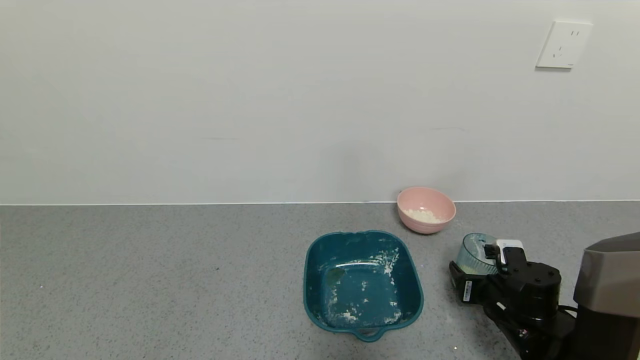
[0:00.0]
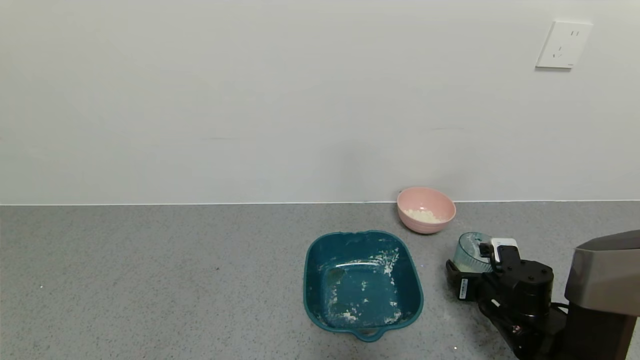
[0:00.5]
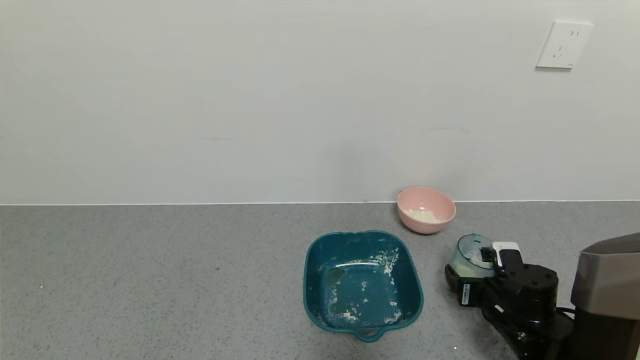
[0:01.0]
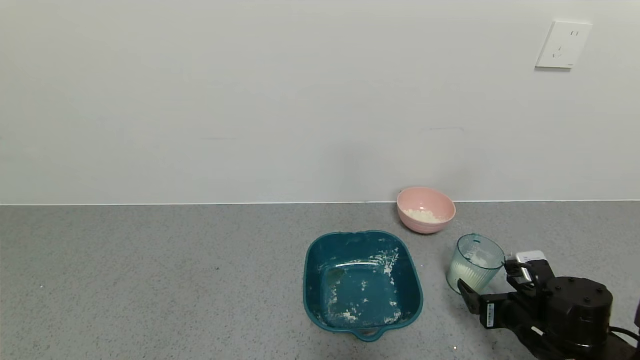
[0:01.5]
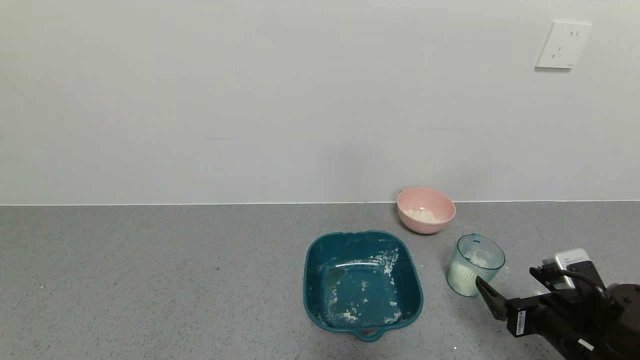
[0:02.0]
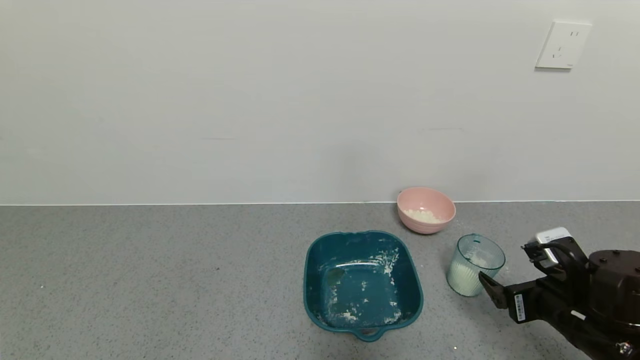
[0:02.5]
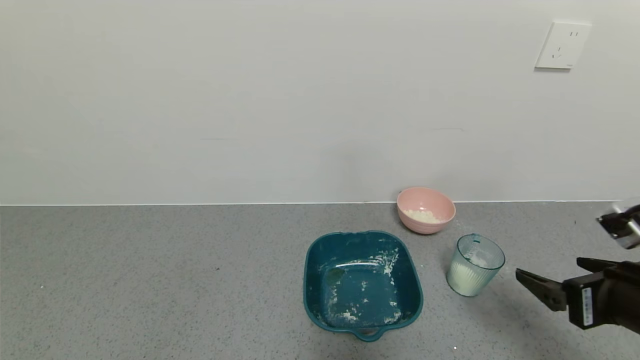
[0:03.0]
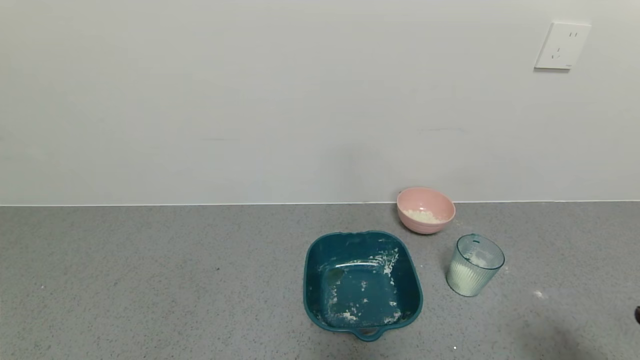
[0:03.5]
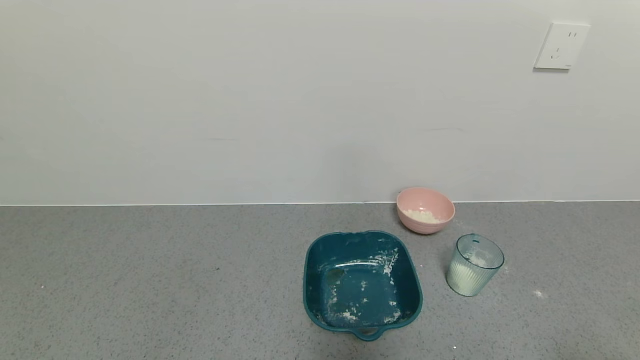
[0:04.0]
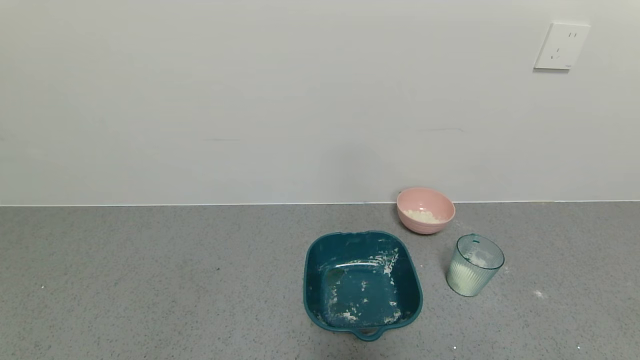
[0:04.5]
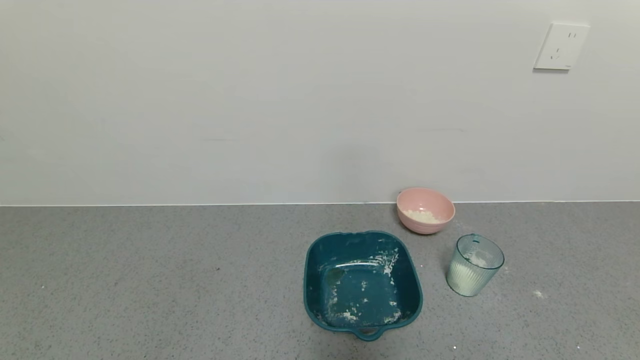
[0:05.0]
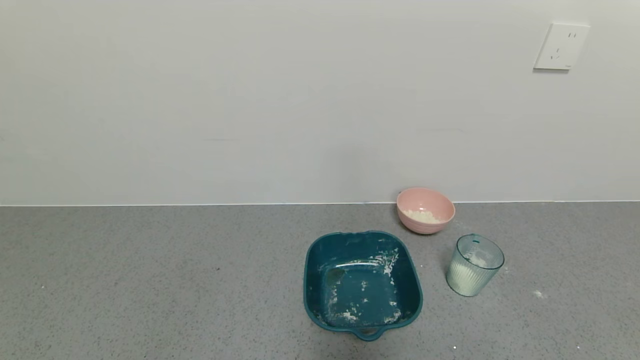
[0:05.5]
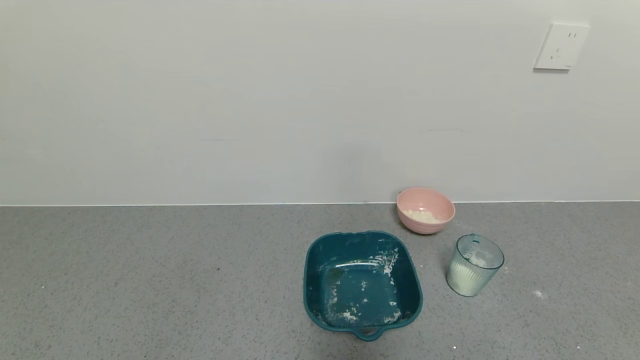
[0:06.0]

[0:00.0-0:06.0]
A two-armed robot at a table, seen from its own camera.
Task of the whole recording: use a gripper to pick up the cup and pour the powder into a bowl or tray.
0:00.0 to 0:02.0: The right gripper travels backward and upward by some 10 cm, and opens.
0:02.0 to 0:04.0: The right gripper goes roughly 25 cm backward and upward.

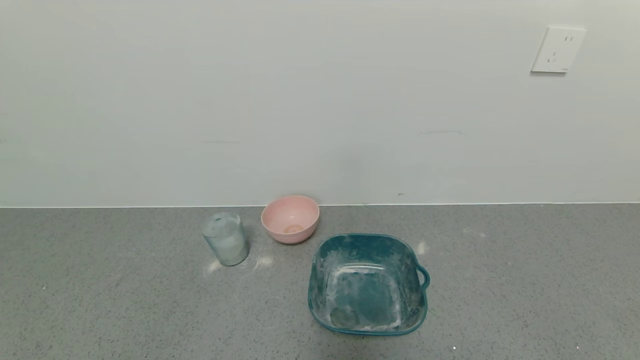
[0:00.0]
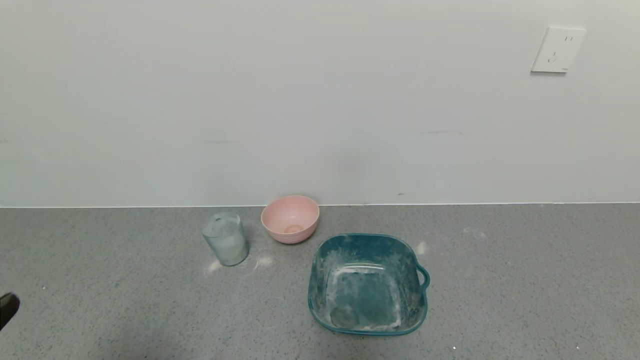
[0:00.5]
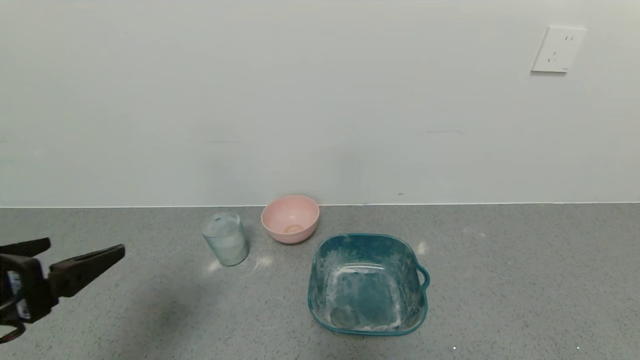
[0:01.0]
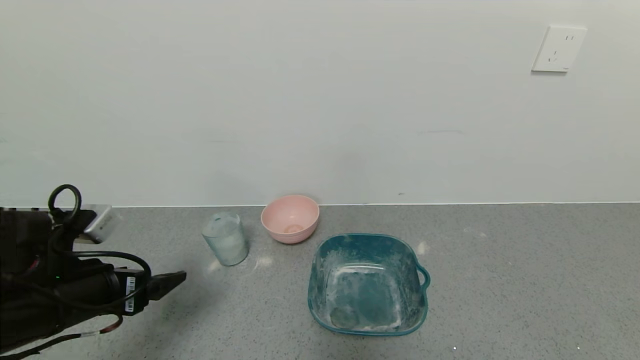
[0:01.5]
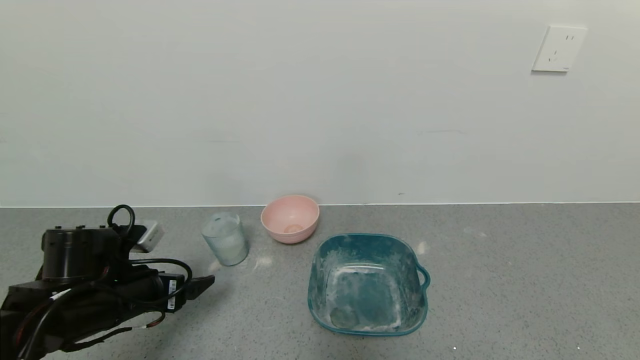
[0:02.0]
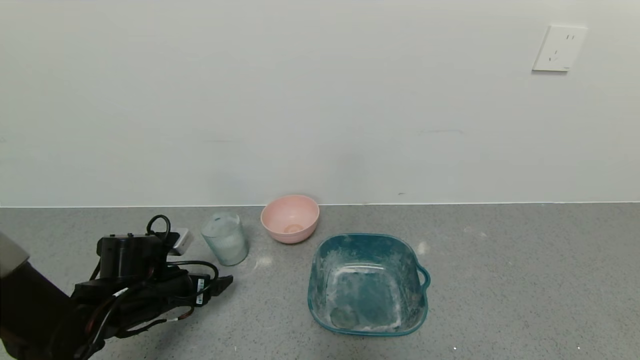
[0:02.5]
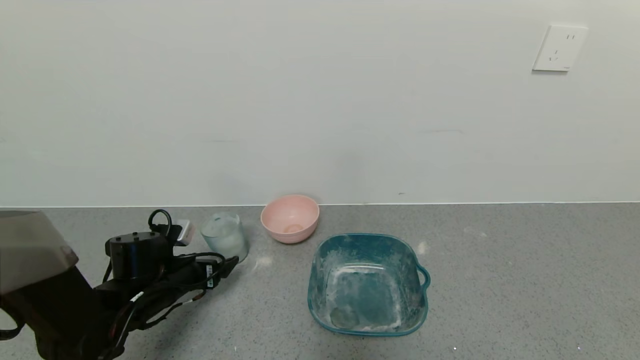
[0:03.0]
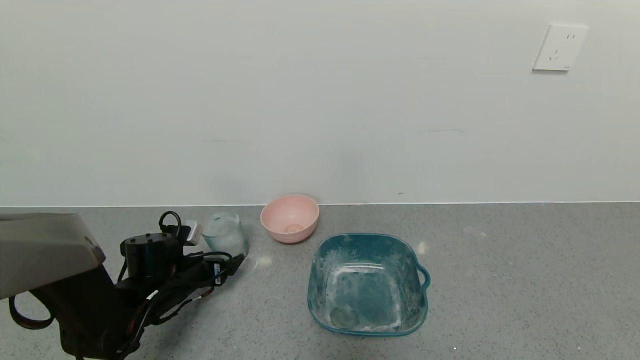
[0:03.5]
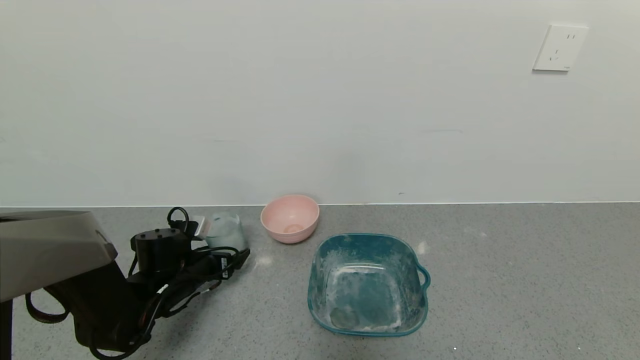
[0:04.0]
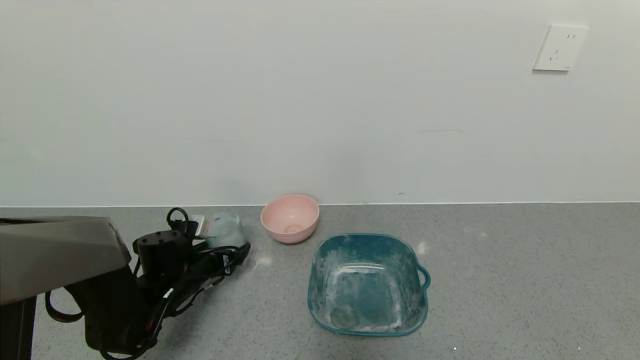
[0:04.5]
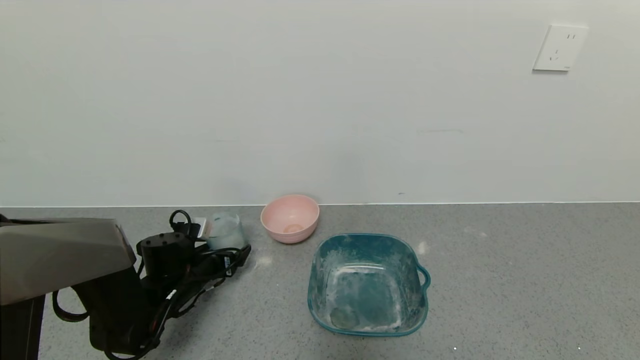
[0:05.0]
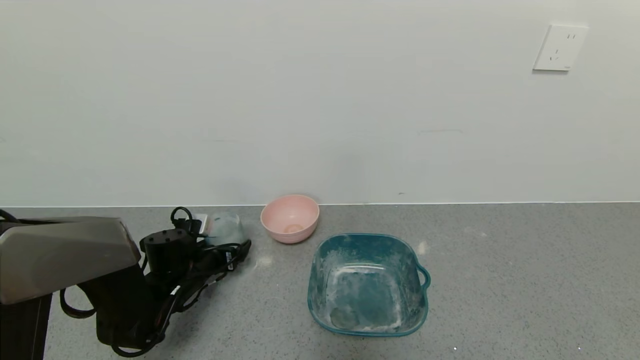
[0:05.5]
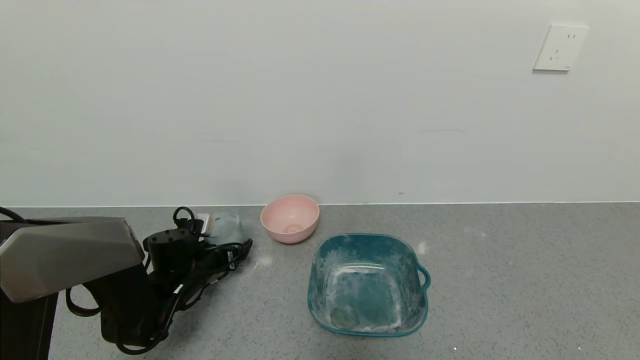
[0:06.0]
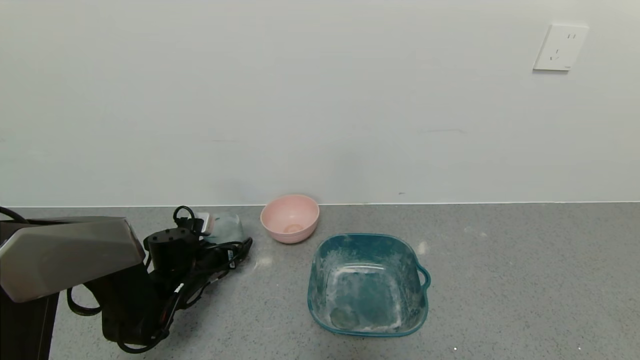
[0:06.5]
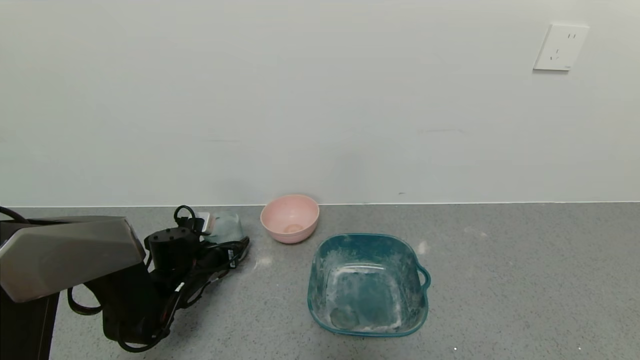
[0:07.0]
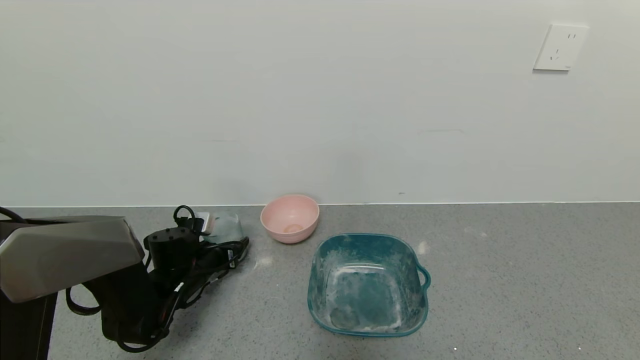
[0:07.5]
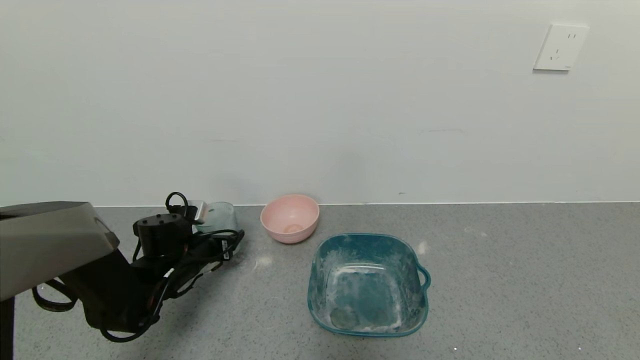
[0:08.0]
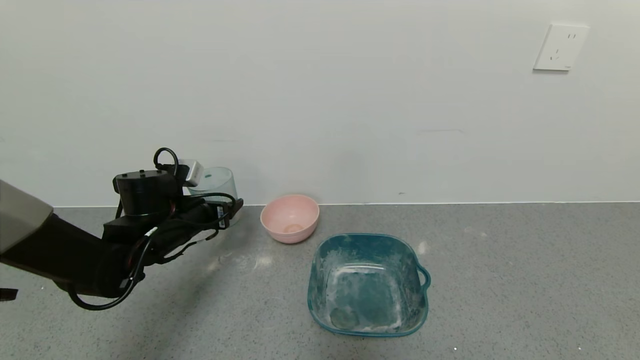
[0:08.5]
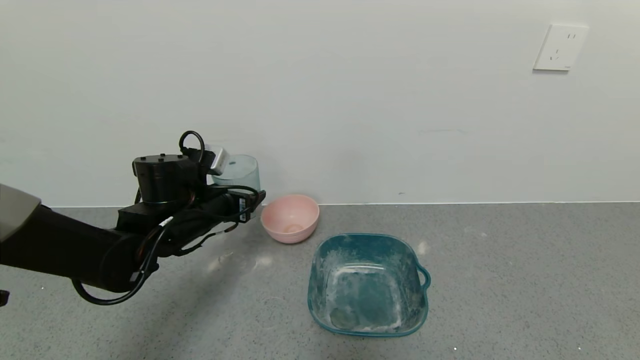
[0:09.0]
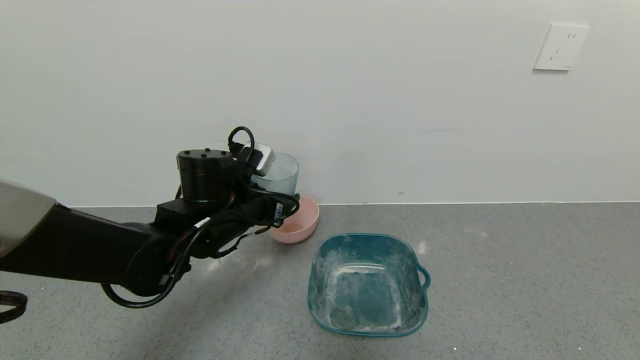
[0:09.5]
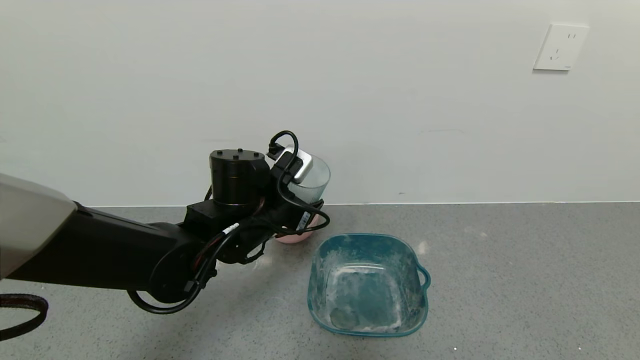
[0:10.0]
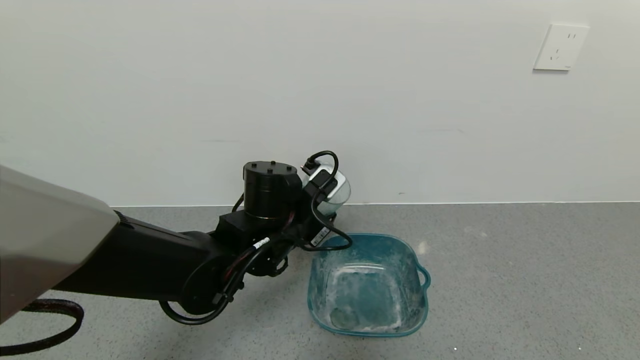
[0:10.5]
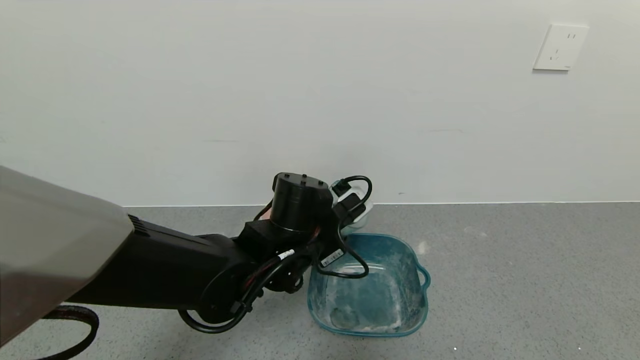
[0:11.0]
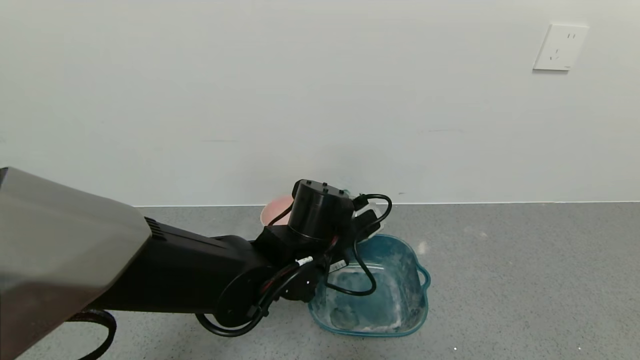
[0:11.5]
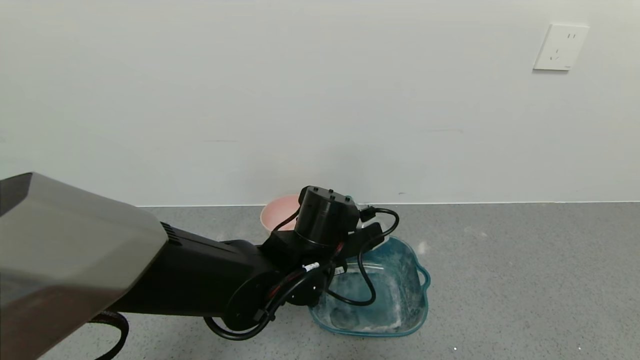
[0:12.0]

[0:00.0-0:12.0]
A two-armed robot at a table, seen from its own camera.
Task of the whole recording: use a gripper to pick up the cup and pour the powder into a bowl or tray.
Step, 0:00.0 to 0:06.5: Grasp the glass of powder with the left gripper.
0:00.0 to 0:02.0: The left gripper is displaced forward and downward by some 25 cm.
0:02.0 to 0:04.0: The left gripper moves forward and downward, roughly 10 cm.
0:04.0 to 0:06.0: The grippers stay close to where they were, moving slightly.
0:06.0 to 0:08.0: The left gripper closes.
0:08.0 to 0:10.0: The left gripper shifts some 20 cm to the right and upward.
0:10.0 to 0:12.0: The left gripper is displaced to the right by roughly 10 cm.

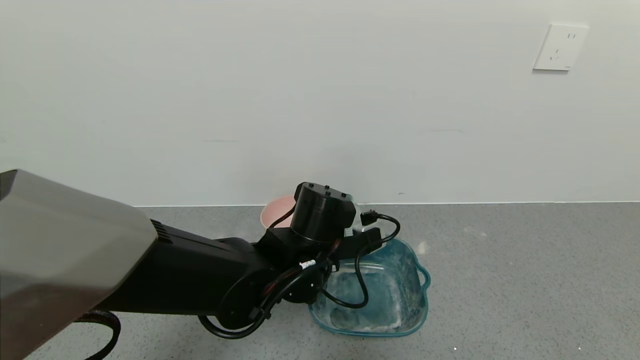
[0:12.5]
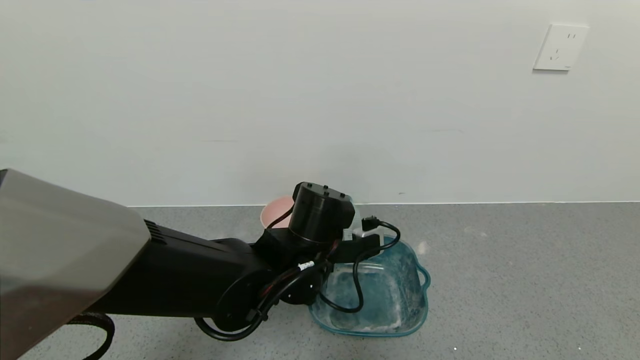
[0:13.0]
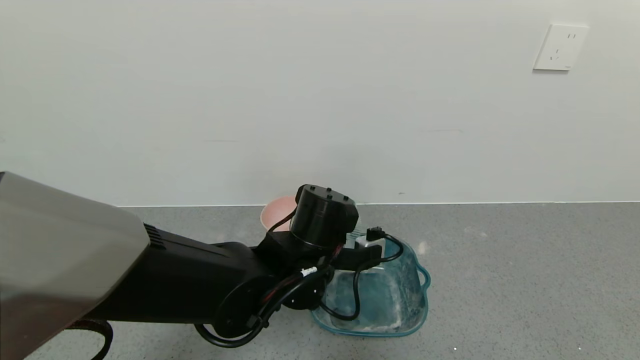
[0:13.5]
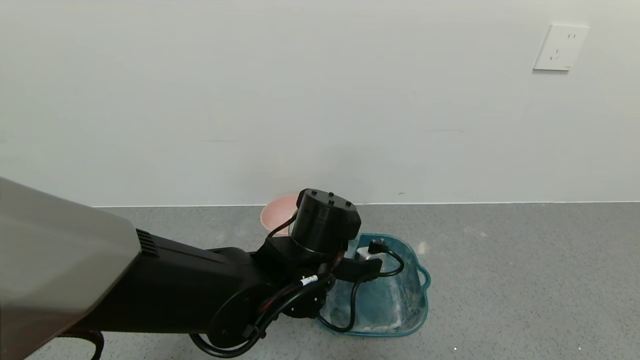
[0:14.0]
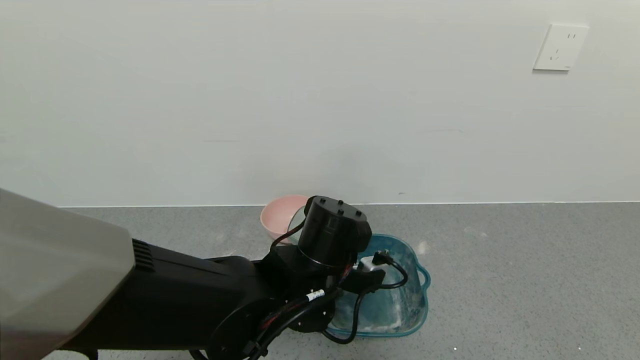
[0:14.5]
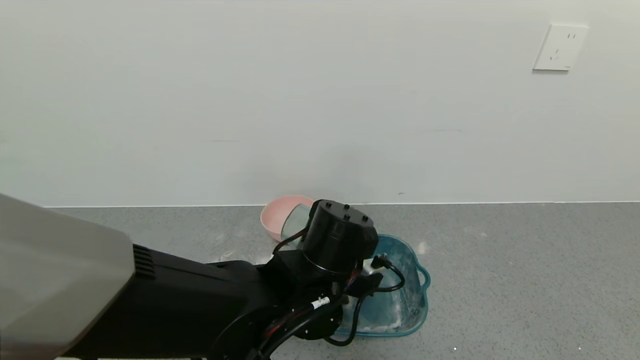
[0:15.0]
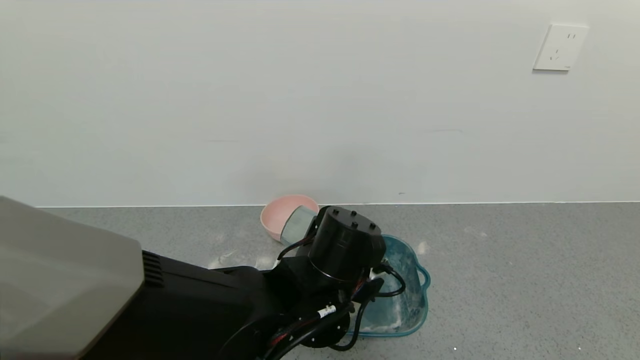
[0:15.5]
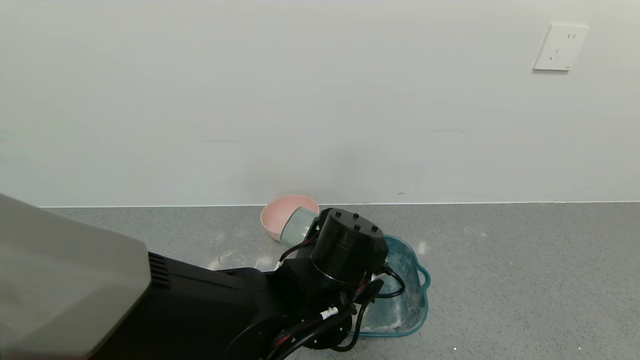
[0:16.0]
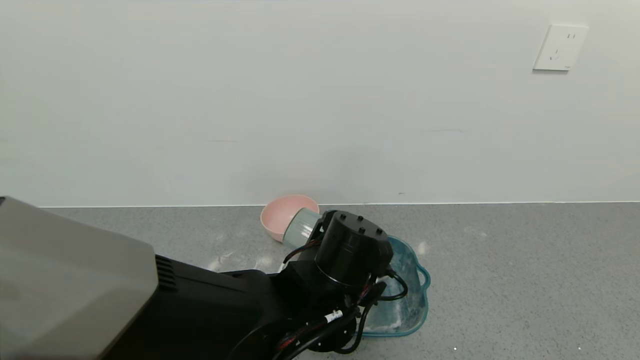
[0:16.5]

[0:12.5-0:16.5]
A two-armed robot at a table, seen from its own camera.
Task of the whole recording: use a gripper to pick up the cup and pour the powder into a bowl or tray.
0:14.5 to 0:16.5: The grippers make only small movements.
